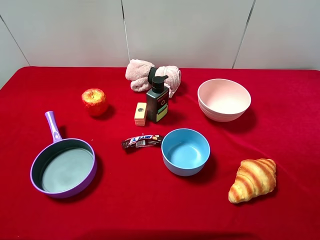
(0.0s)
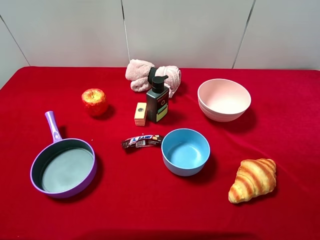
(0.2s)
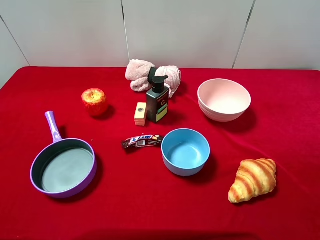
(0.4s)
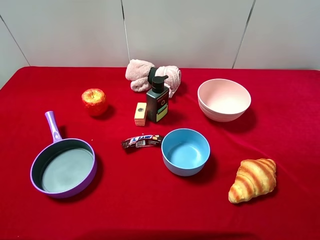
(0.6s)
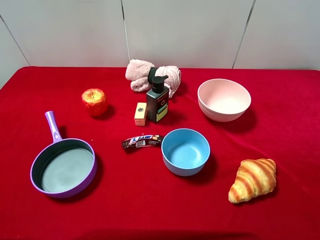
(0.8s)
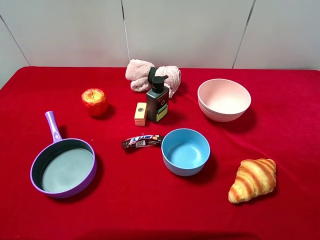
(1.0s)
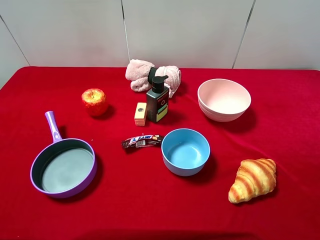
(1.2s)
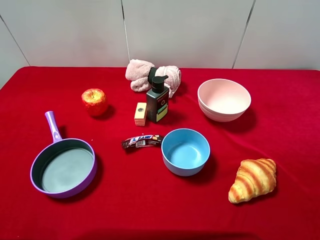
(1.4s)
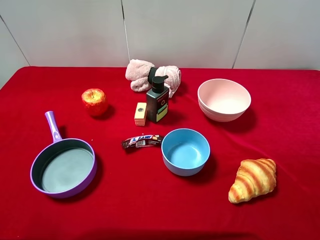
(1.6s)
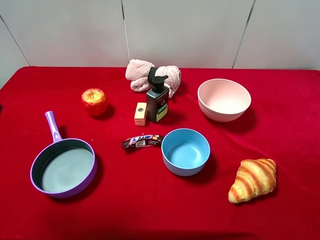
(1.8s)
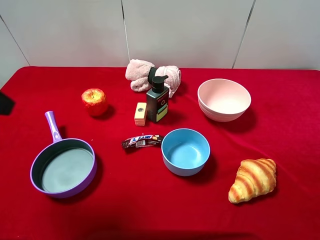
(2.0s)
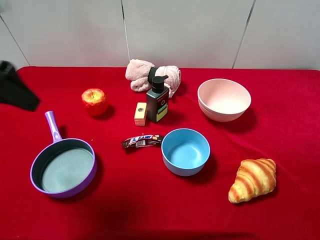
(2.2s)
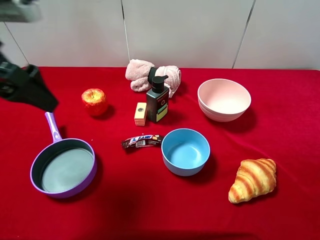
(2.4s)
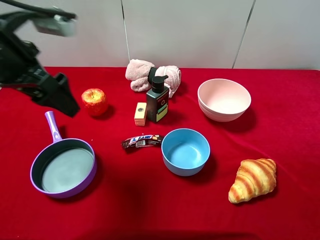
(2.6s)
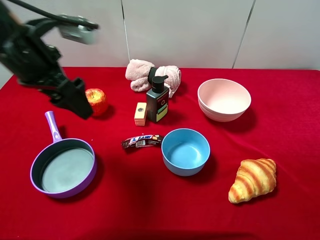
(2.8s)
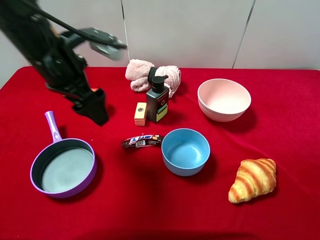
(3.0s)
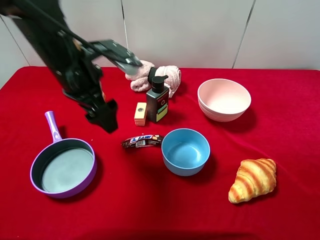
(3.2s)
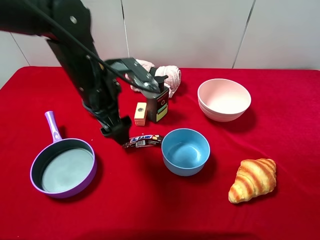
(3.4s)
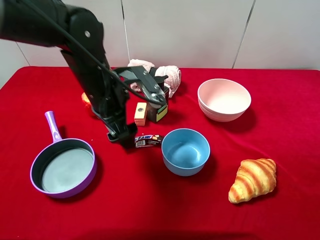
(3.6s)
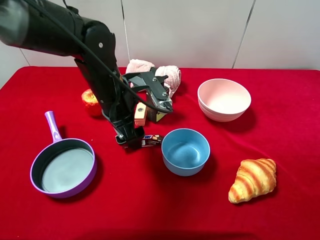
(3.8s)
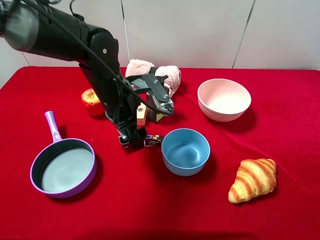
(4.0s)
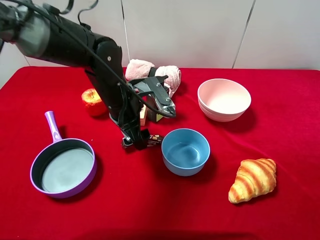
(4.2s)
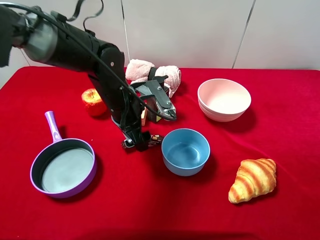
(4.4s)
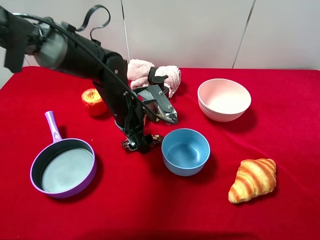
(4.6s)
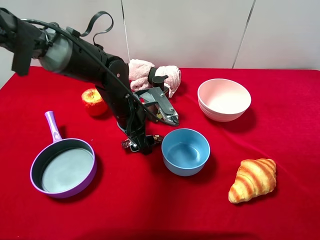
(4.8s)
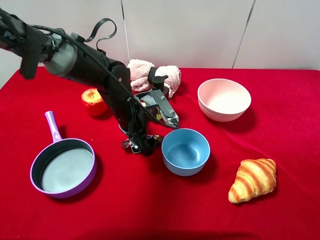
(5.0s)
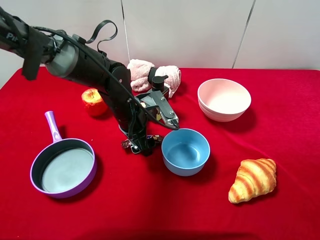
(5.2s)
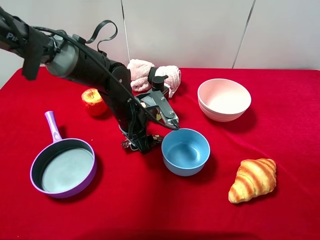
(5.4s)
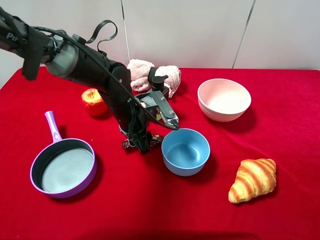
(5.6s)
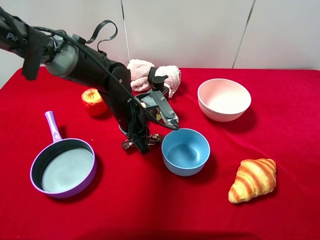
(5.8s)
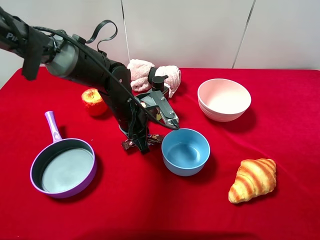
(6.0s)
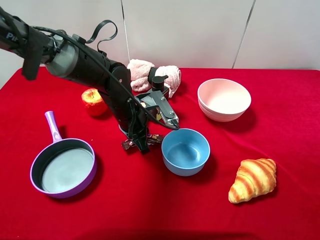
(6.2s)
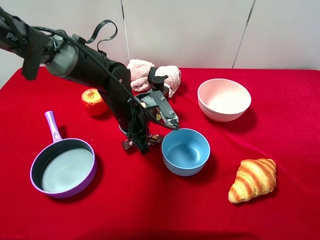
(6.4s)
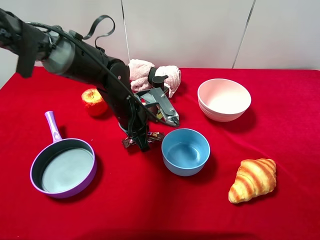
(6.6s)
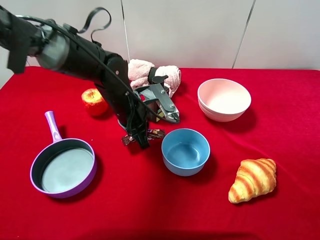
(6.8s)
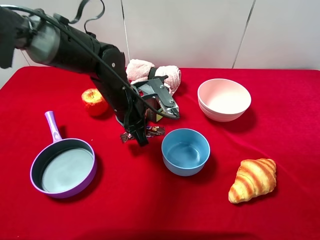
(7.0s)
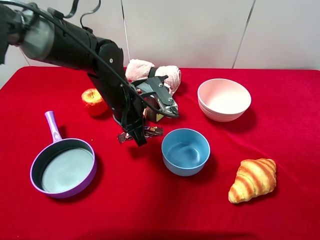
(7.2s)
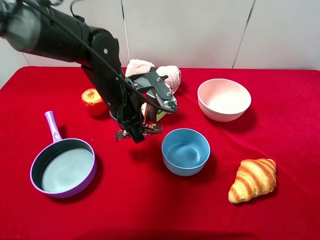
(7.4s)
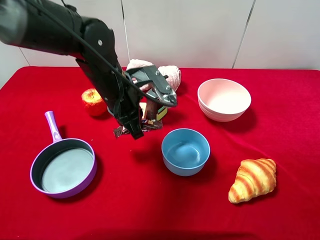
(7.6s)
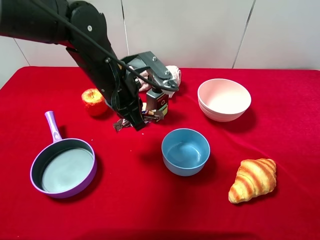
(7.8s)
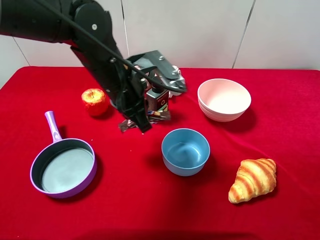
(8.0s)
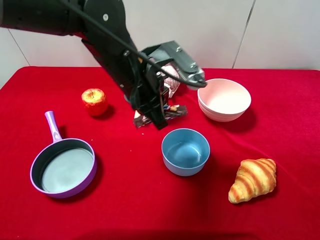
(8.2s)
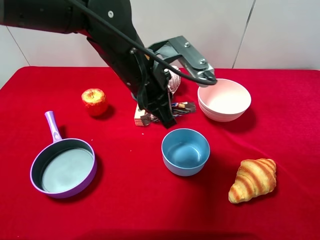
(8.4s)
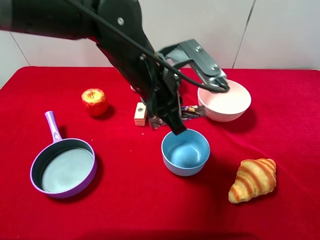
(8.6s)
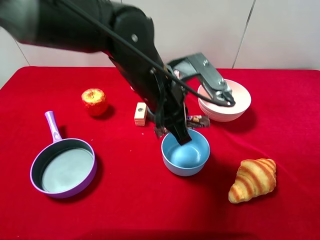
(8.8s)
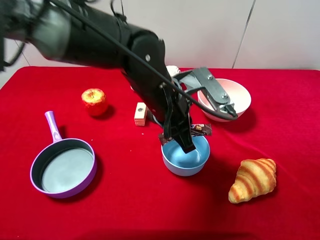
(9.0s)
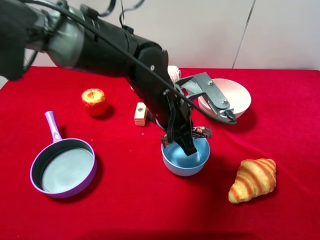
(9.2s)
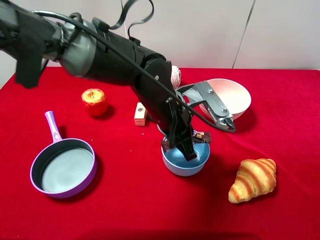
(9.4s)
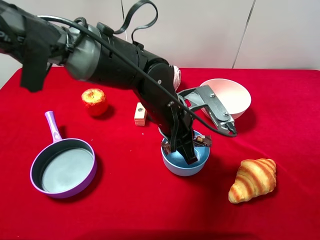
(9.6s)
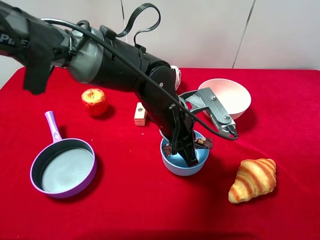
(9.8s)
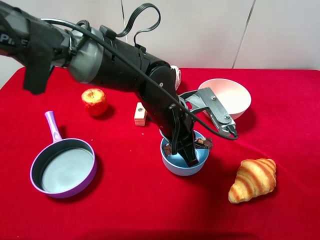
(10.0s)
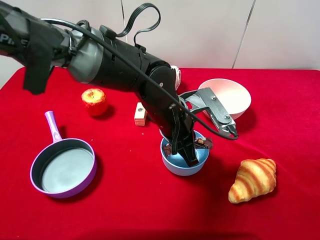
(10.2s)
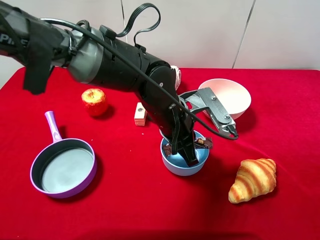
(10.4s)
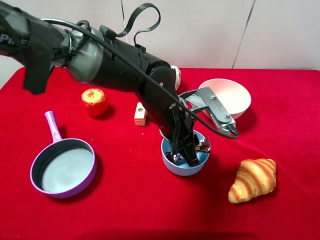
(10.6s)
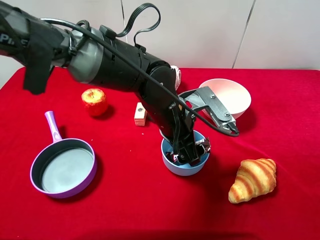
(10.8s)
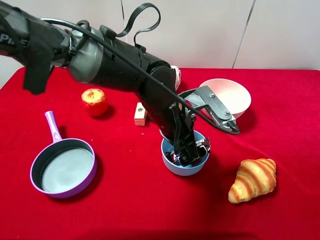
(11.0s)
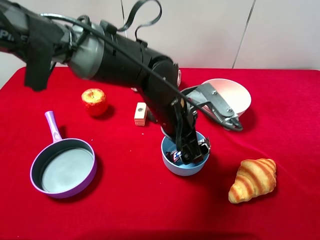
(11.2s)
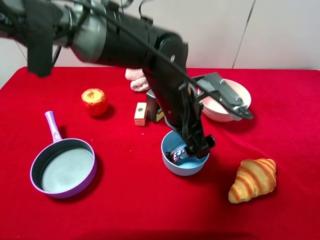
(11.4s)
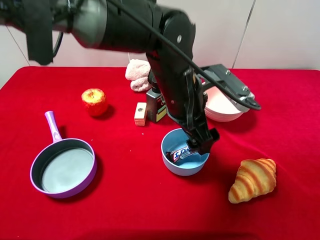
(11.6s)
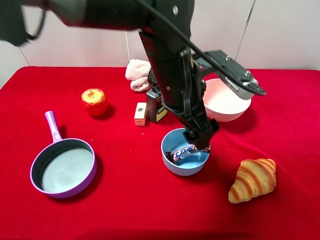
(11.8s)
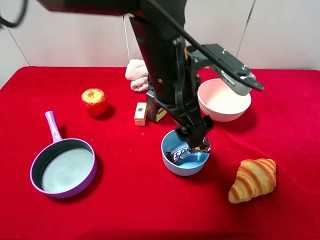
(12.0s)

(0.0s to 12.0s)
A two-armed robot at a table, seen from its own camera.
Task of the whole recording: pick up an item with a gripper and place it in a random container on the desktop.
1.6s - 3.0s: The left gripper heads forward, to the right and downward, covering some 25 cm.
3.0s - 4.4s: The left gripper is displaced downward and to the right by some 15 cm.
4.4s - 6.0s: The left gripper closes up.
6.0s - 7.6s: The left gripper is displaced upward by approximately 10 cm.
7.6s - 9.0s: The left gripper moves to the right, about 10 cm.
9.0s - 10.4s: There are only small adjustments of the grippers.
10.4s - 12.0s: The left gripper goes about 10 cm upward, and opens its fingers.

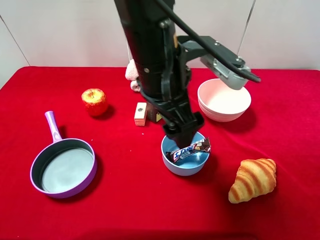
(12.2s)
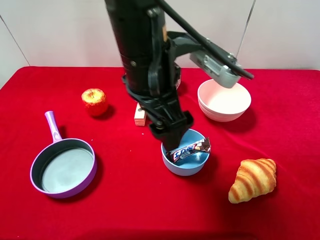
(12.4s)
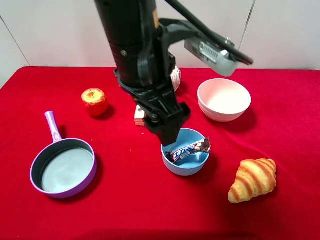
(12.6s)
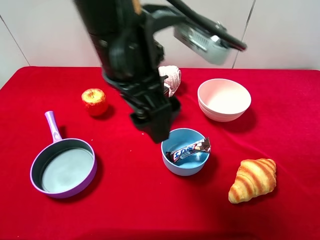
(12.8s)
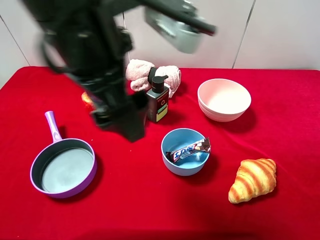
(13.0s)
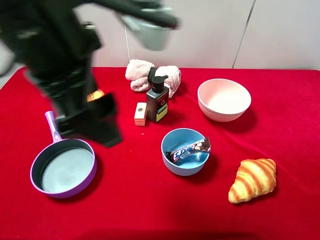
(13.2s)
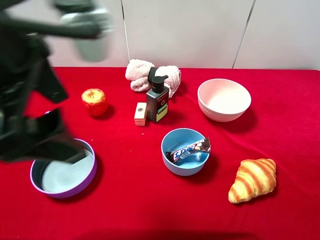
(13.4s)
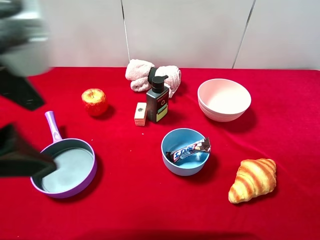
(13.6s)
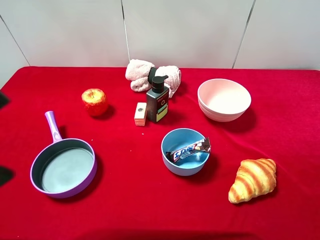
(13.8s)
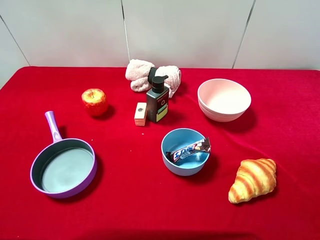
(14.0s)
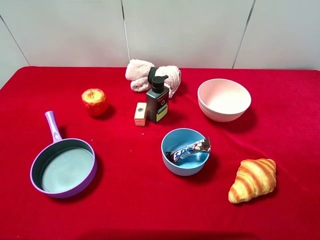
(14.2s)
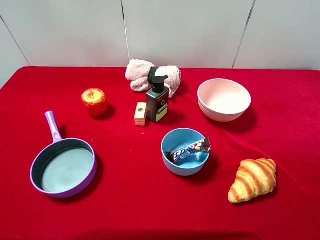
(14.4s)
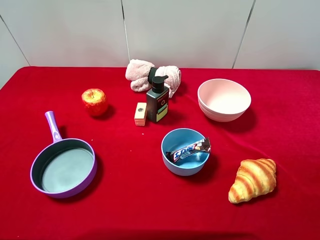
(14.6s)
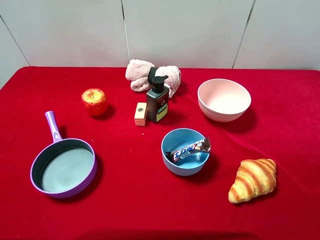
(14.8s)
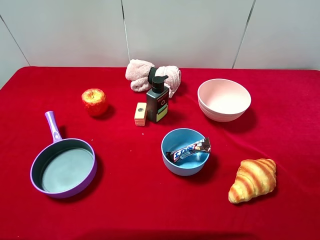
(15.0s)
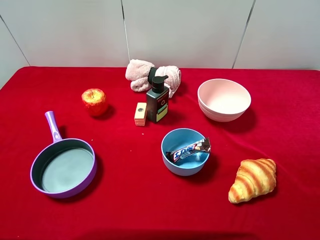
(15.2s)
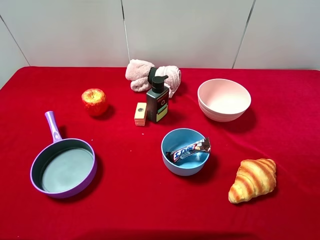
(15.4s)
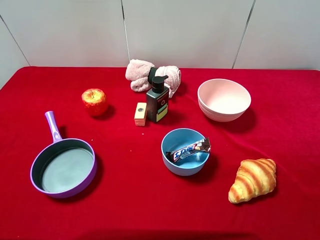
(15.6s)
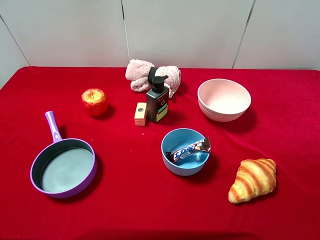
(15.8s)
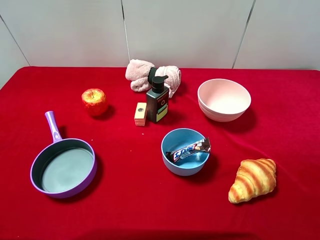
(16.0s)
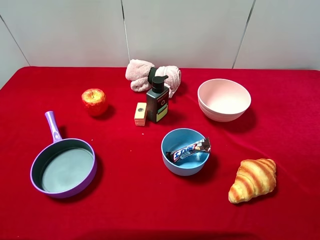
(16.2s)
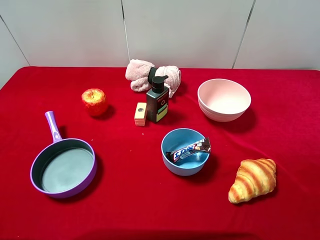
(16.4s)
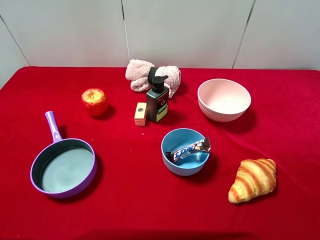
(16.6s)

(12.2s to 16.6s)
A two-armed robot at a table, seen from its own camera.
Task of the whole recording: pick up an item with a gripper and place it in a random container on the desktop.
12.2s - 13.6s: The left gripper heads to the left, backward and upward, covering roughly 20 cm.
13.6s - 15.2s: The left gripper heads to the left, backward and downward, covering some 20 cm.

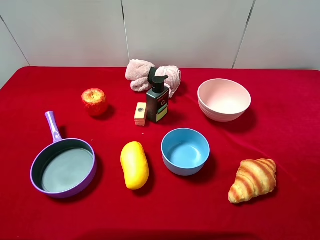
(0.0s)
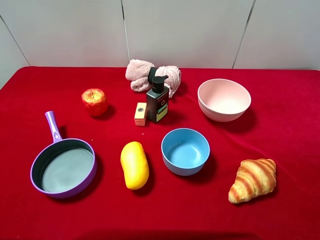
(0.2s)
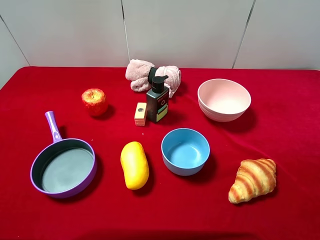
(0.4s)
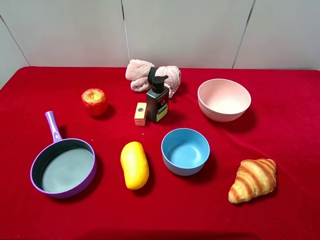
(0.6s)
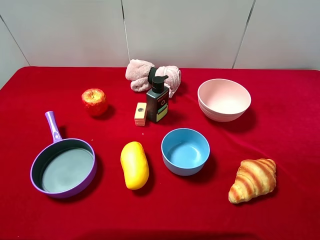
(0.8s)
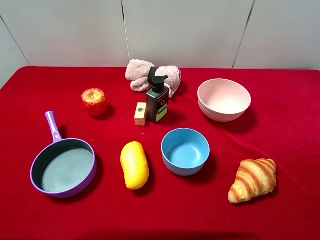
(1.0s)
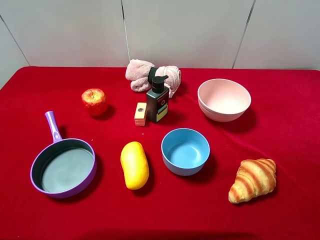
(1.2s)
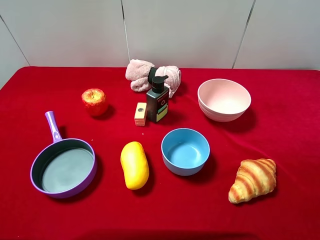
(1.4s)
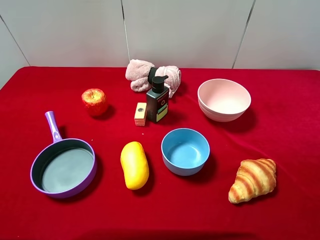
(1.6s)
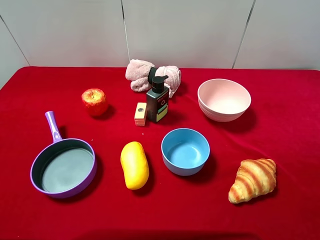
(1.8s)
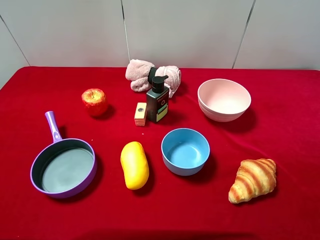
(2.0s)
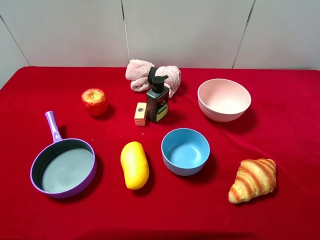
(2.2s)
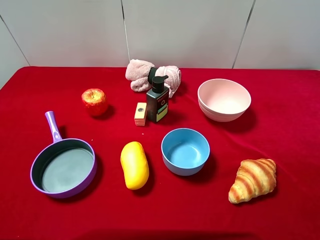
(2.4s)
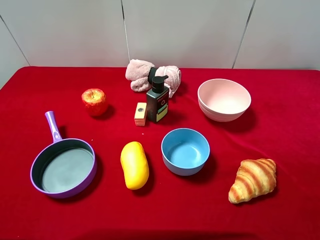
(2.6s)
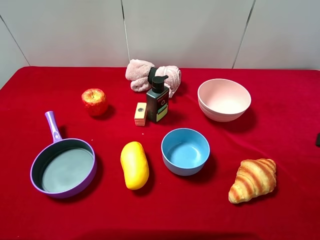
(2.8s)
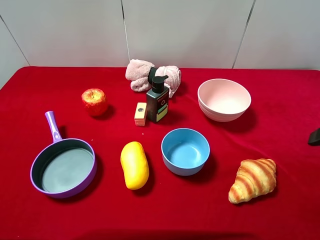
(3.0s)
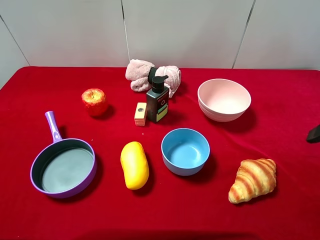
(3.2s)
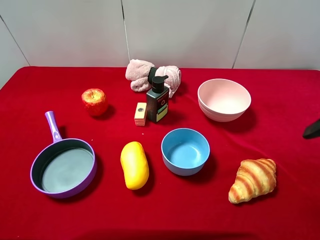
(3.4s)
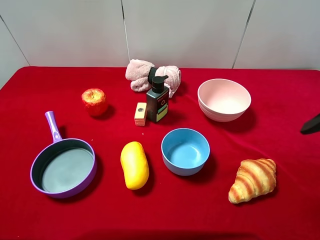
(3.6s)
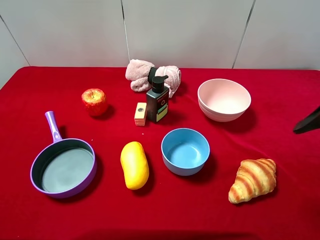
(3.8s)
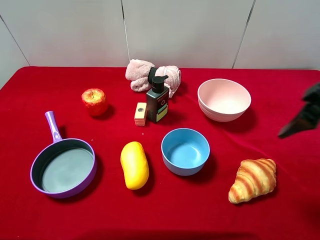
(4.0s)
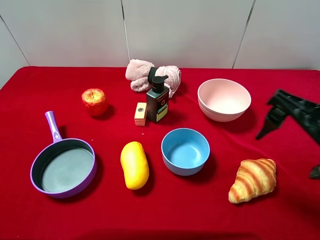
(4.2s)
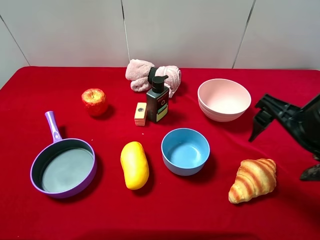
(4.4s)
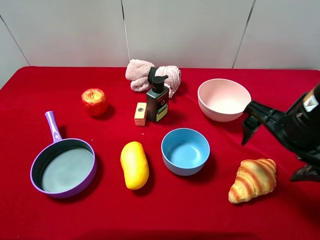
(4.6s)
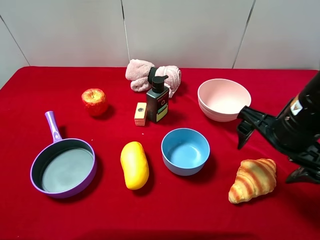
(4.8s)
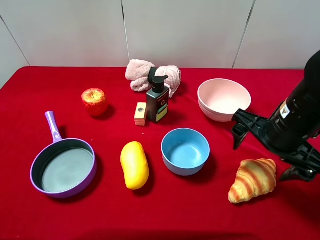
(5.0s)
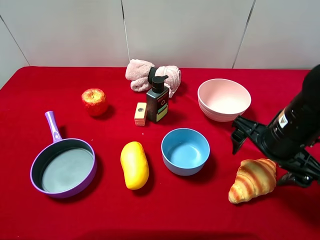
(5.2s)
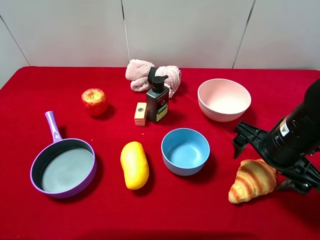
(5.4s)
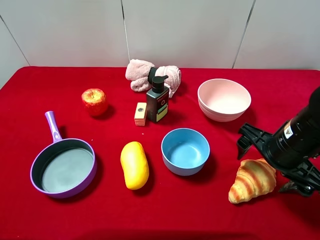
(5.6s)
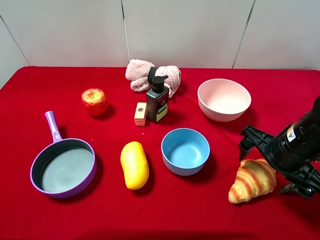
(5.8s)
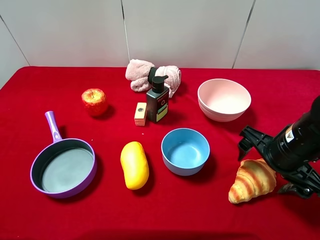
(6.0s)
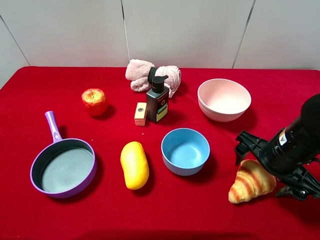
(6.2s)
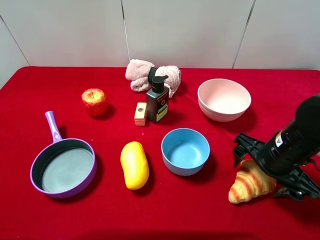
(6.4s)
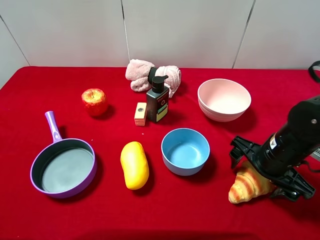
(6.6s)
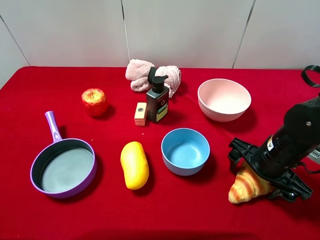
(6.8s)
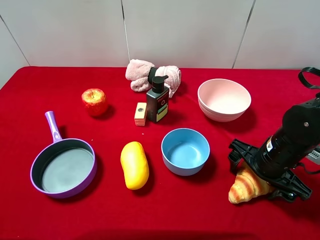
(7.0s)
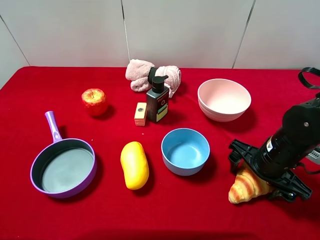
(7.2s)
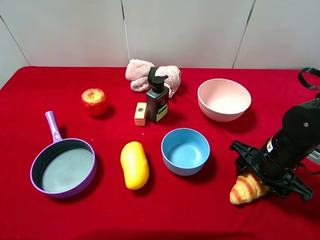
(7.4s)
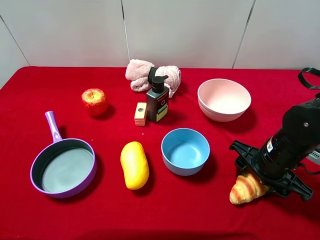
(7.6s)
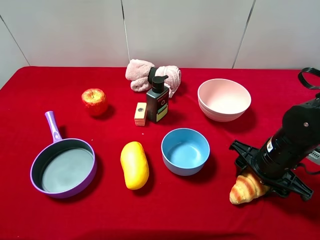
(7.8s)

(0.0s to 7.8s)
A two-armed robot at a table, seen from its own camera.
Task of the whole recording: pick up an item with a gripper and place it in a random container on the desktop.
3.2s - 4.6s: The right gripper goes about 15 cm to the left, downward and forward.
4.6s - 6.2s: The right gripper travels downward by some 10 cm.
6.2s - 7.8s: The right gripper closes its fingers.
